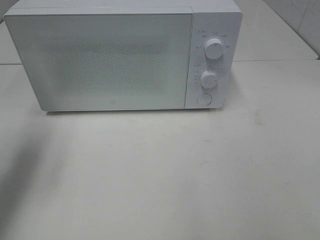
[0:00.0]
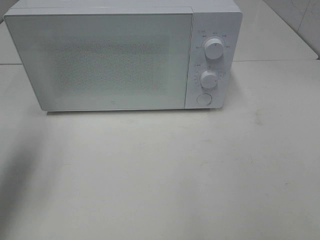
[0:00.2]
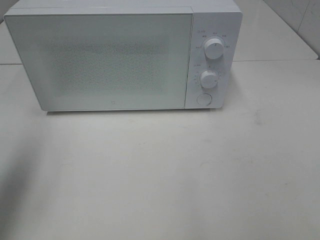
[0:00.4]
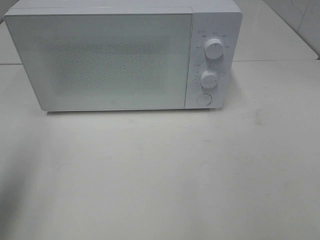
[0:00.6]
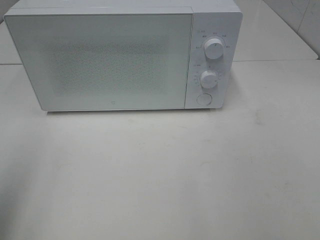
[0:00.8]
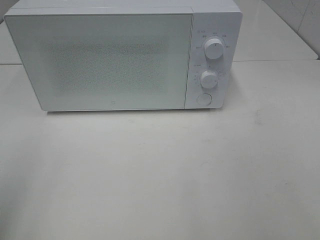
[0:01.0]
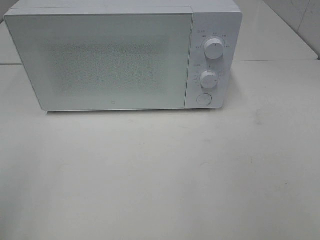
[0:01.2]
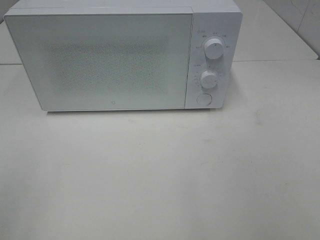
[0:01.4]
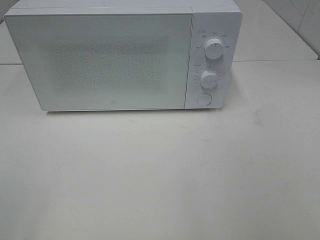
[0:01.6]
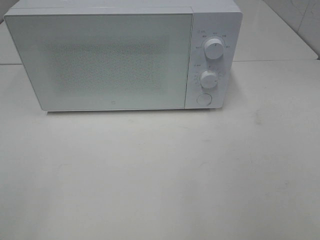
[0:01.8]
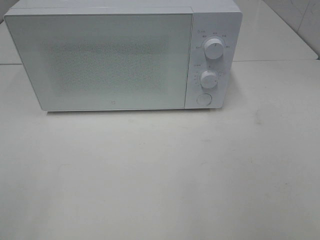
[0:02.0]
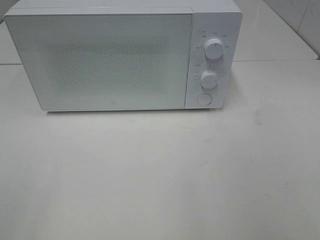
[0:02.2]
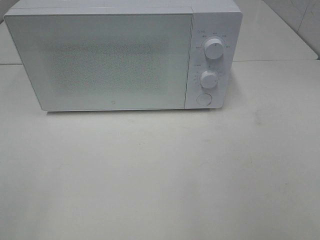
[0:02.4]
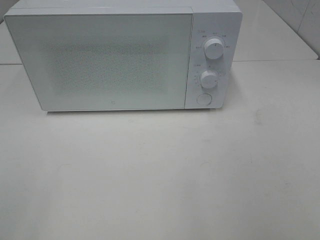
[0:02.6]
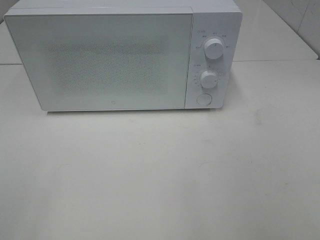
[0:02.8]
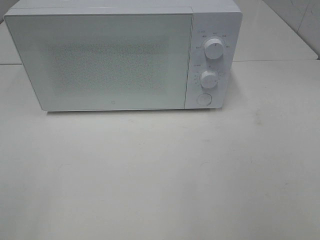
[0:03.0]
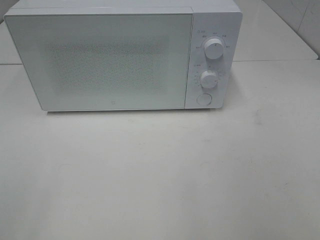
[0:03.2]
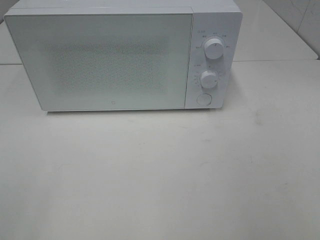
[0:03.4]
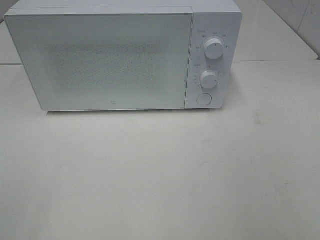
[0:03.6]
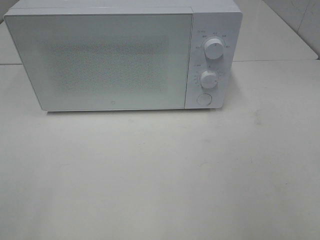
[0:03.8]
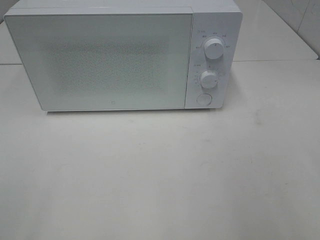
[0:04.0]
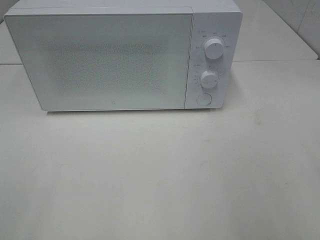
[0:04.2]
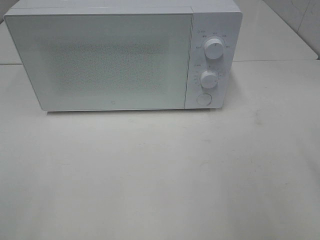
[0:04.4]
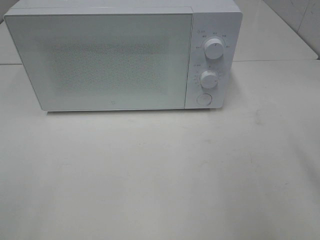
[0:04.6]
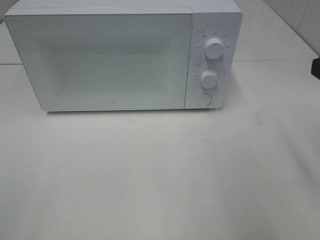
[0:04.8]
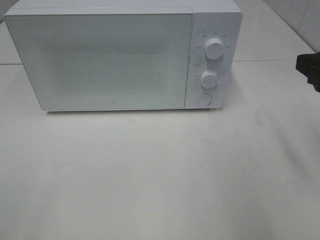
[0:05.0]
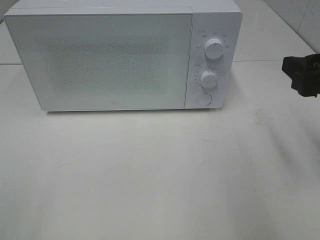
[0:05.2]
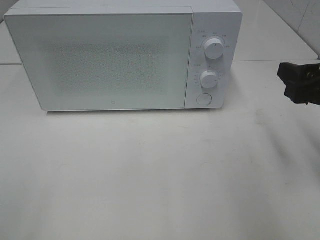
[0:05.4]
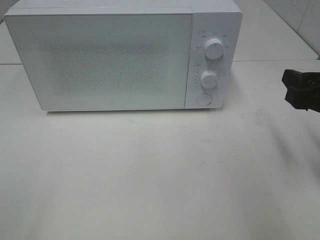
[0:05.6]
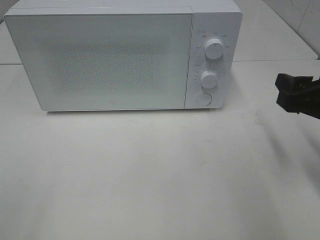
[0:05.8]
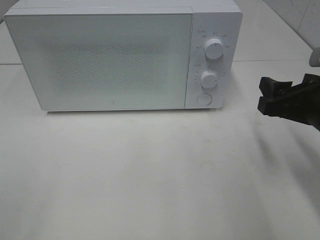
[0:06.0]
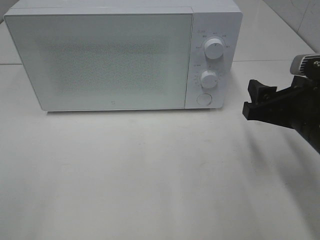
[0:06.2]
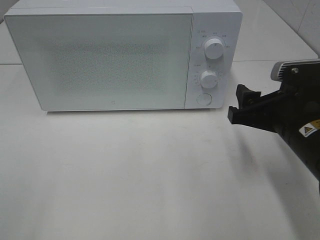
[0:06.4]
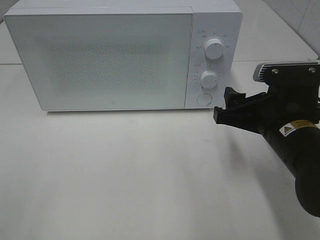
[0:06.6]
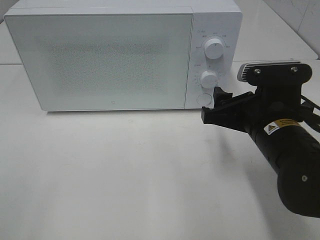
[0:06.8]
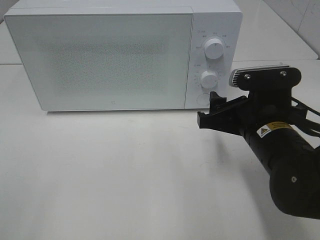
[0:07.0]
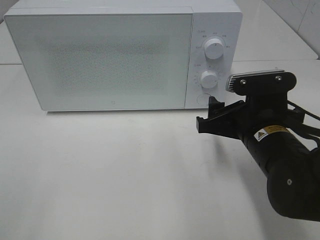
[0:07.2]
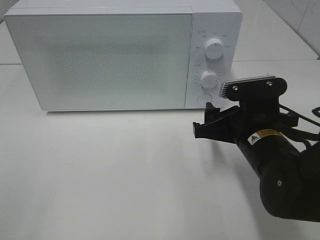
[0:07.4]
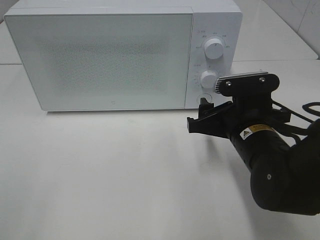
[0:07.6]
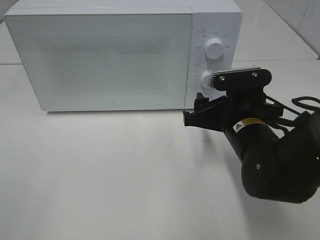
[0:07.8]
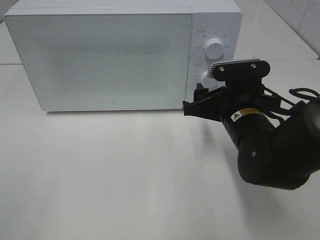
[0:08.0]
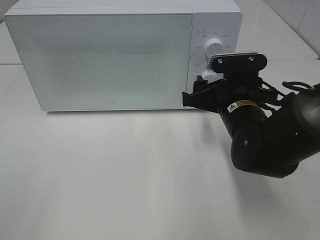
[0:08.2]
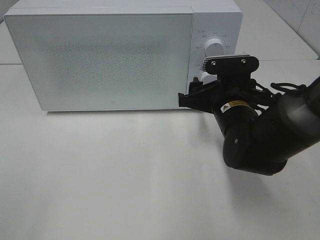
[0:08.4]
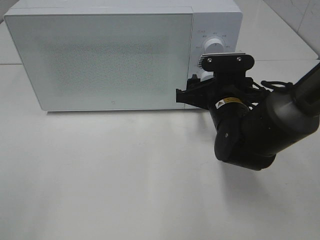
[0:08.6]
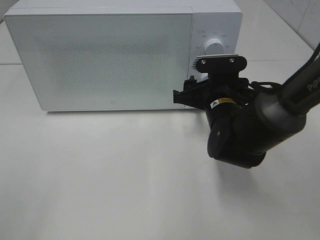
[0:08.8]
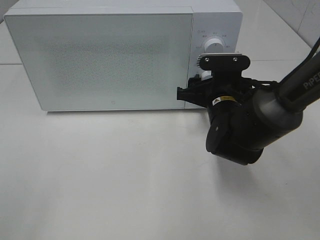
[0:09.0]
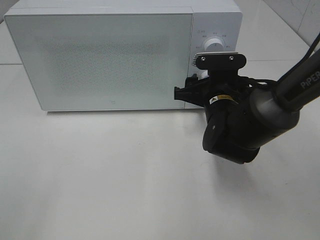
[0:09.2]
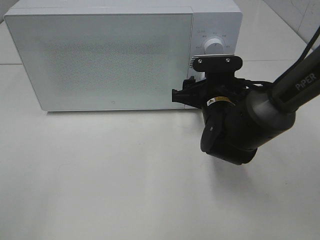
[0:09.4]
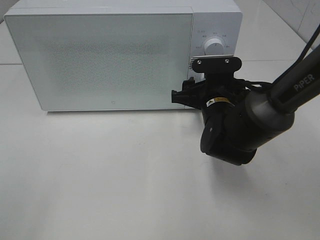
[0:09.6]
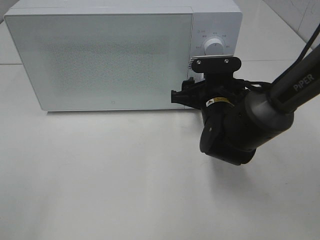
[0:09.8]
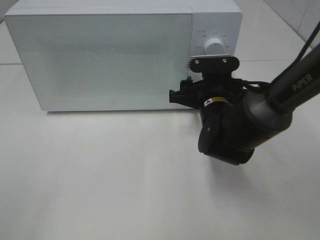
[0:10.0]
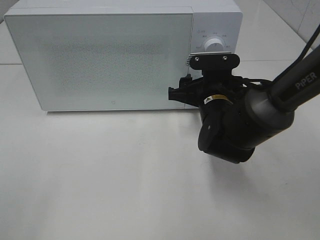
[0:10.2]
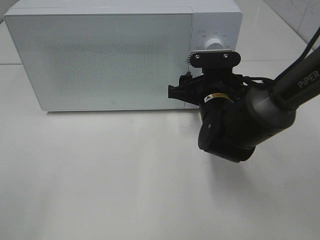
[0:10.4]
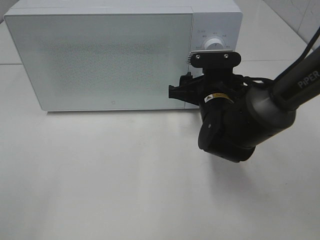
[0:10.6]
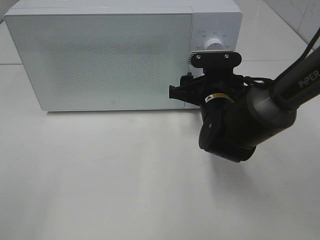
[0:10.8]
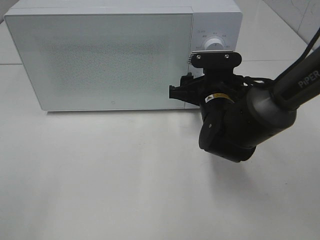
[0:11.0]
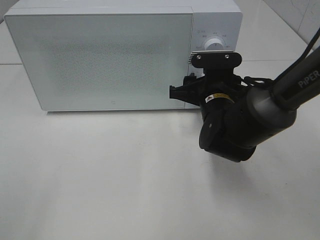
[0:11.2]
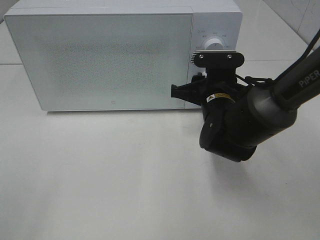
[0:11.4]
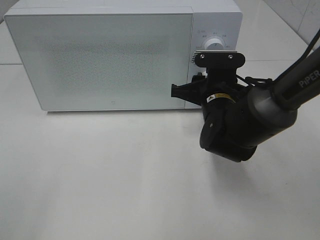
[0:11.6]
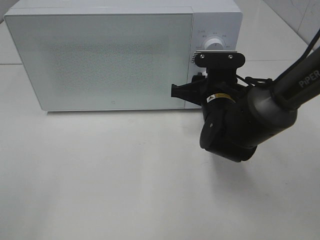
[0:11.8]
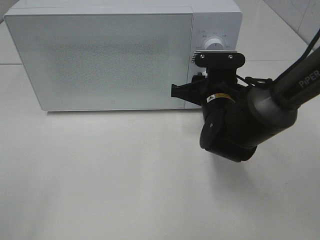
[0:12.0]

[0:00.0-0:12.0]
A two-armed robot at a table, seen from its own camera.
Task of the whole recording: Heat the burger.
0:00.0 to 0:01.6: The left gripper is displaced backward by roughly 25 cm.
0:01.6 to 0:03.0: Neither gripper changes place.
0:04.4 to 0:06.0: The right gripper heads downward and forward, covering about 15 cm.
0:06.0 to 0:07.6: The right gripper moves to the left and downward, approximately 10 cm.
0:07.6 to 0:09.0: The right gripper goes about 10 cm forward.
0:09.0 to 0:10.4: Both grippers stay about where they are.
0:10.4 to 0:12.0: The right gripper closes.

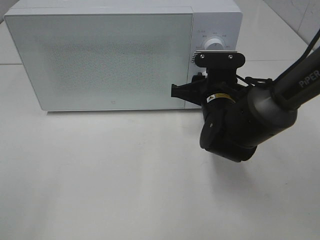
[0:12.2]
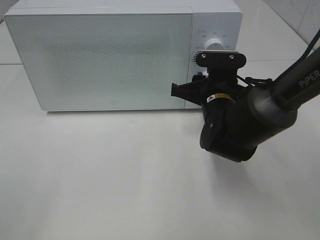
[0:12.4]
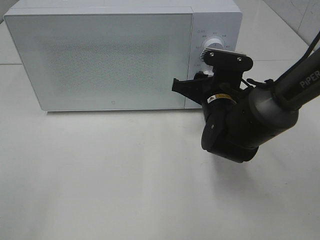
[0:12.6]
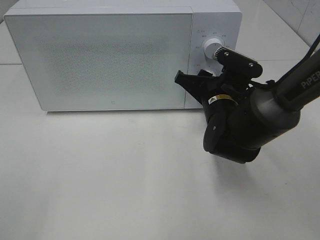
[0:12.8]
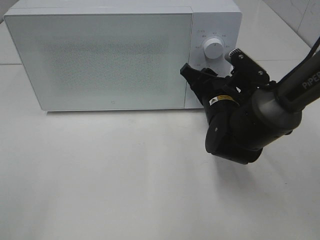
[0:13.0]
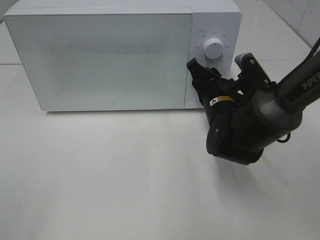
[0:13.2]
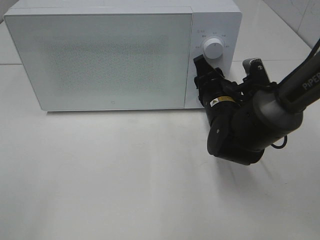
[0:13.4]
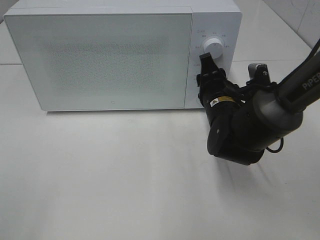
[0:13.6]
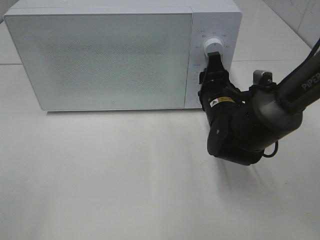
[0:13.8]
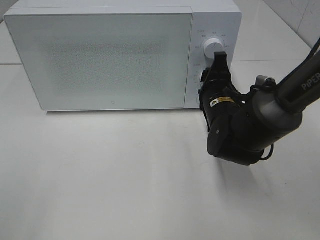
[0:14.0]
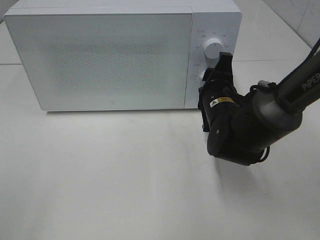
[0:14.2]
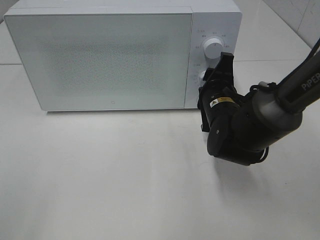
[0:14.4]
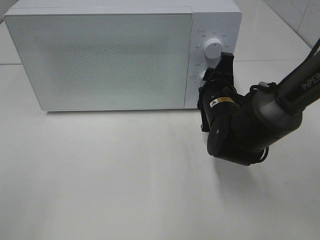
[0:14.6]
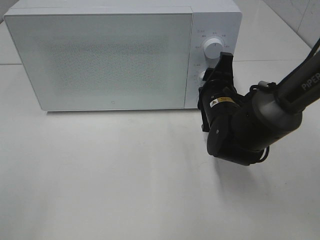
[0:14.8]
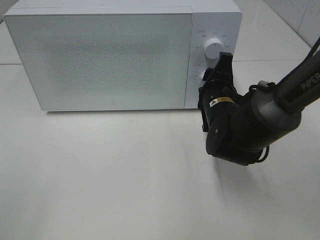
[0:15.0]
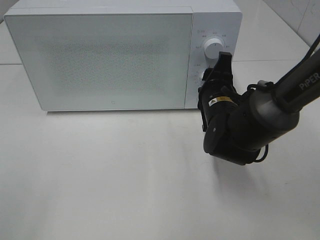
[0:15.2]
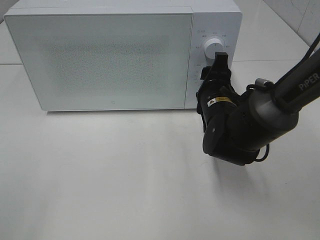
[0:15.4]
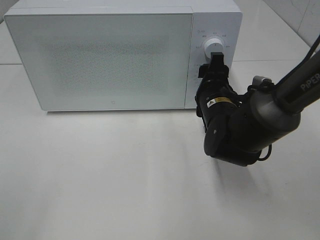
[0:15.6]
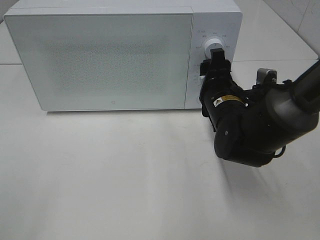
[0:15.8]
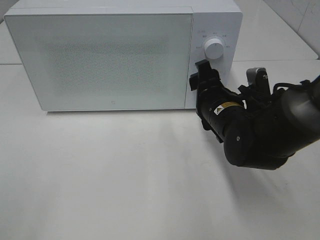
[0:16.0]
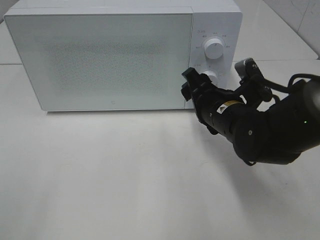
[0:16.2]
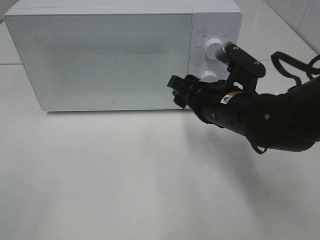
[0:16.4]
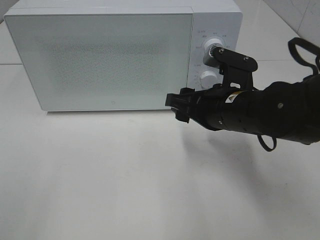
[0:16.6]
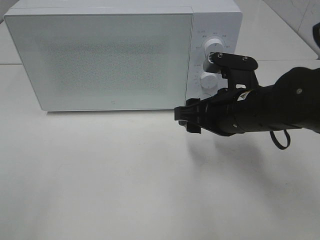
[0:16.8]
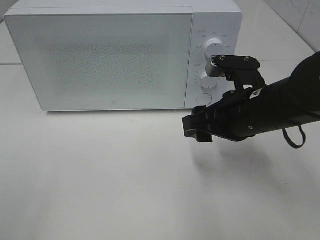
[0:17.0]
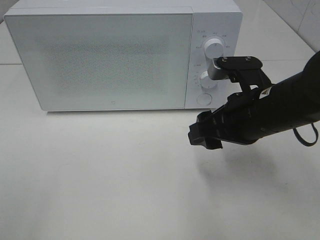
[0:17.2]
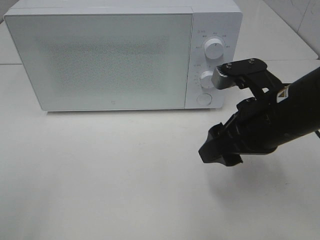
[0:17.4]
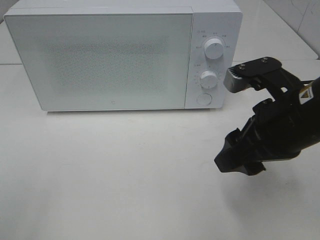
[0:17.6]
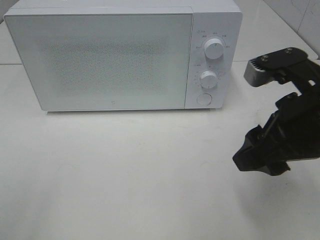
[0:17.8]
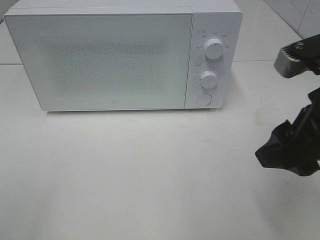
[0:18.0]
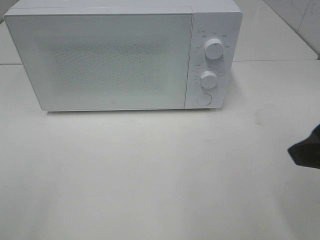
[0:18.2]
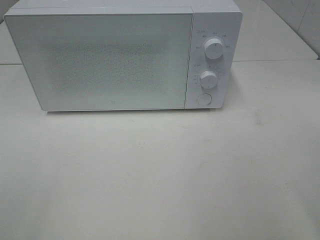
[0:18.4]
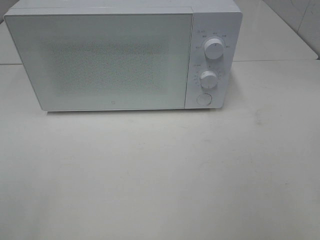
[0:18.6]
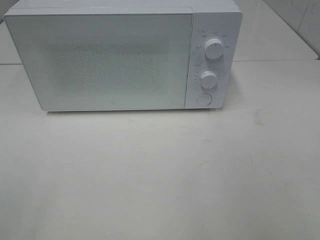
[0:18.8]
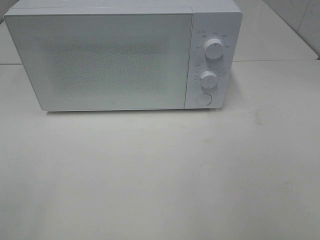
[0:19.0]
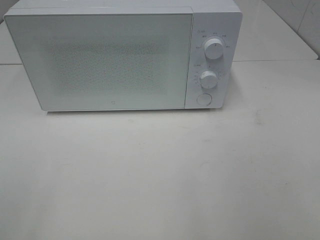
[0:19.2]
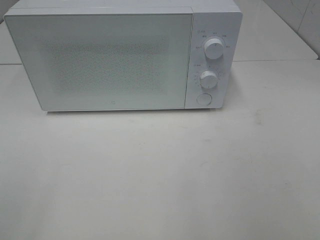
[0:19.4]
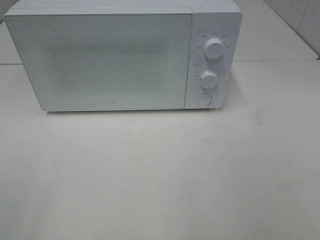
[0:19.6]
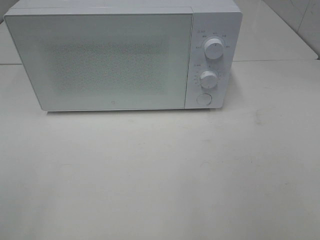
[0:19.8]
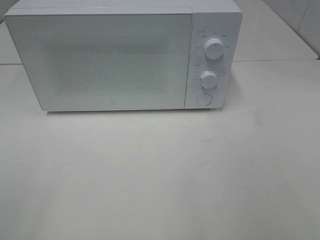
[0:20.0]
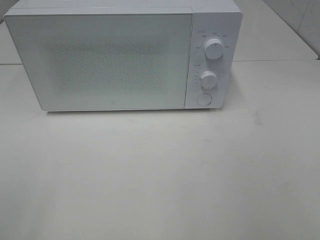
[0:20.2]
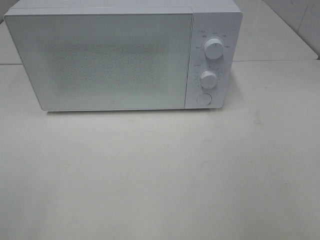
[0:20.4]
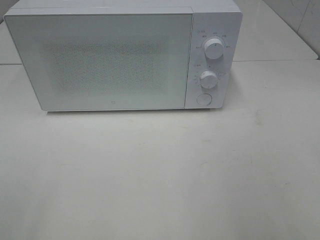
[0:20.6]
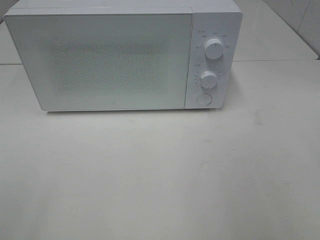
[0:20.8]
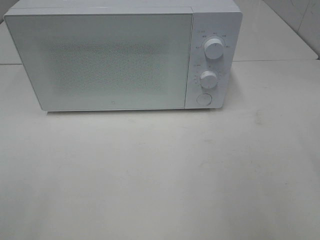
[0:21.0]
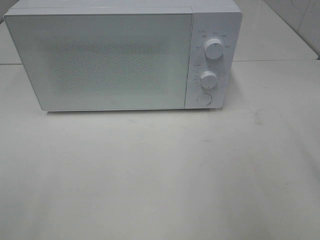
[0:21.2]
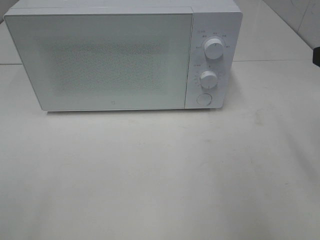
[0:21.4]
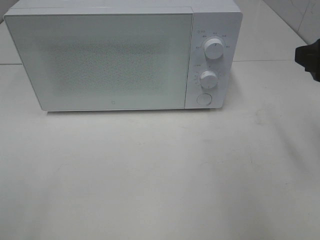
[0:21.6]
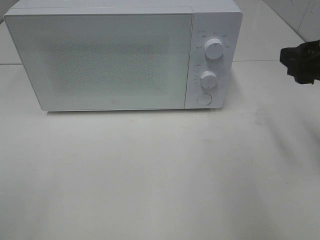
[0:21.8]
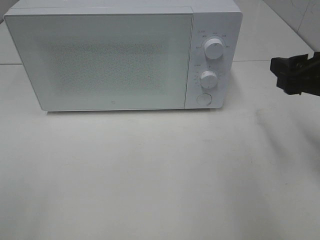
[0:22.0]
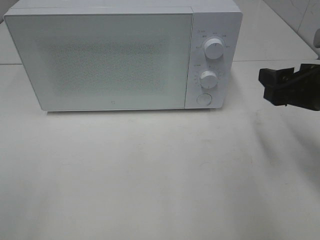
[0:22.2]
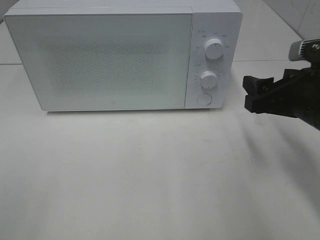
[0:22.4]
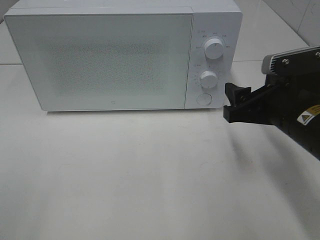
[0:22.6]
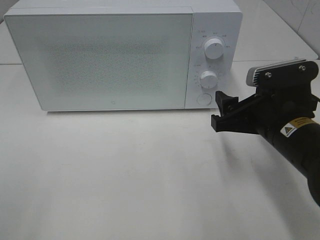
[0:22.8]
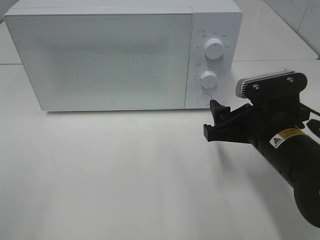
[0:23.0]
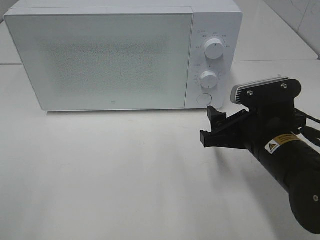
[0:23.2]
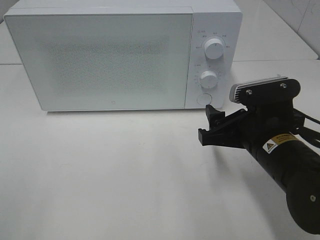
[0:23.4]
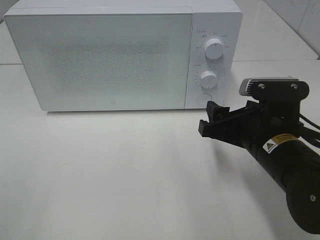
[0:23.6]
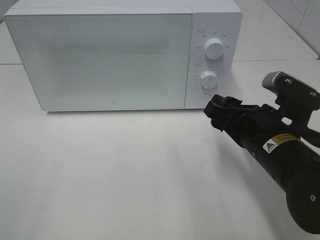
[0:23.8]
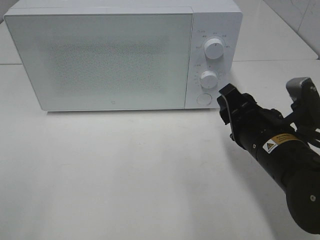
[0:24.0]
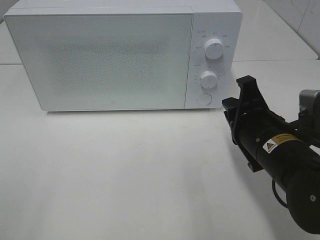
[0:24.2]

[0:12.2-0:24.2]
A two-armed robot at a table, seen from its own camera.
Task of the whole recording: Heat the burger.
Step, 0:12.2 to 0:15.8: Right hand: twist timer button.
0:13.8 to 0:15.2: The grippers move only a little.
0:15.2 to 0:16.6: The right gripper travels backward by some 5 cm.
0:16.6 to 0:18.2: The right gripper goes about 20 cm backward, upward and to the right.
0:18.2 to 0:19.8: The right gripper heads backward and to the right, covering about 15 cm.
0:21.2 to 0:22.6: The right gripper travels downward, forward and to the left by approximately 15 cm.
0:22.6 to 0:24.2: The right gripper changes place by roughly 5 cm, and closes up.
